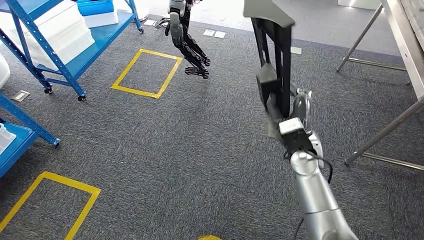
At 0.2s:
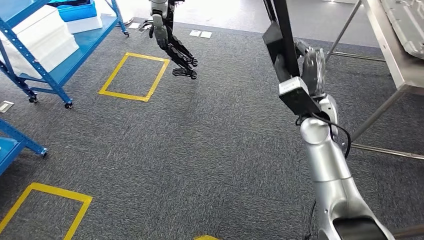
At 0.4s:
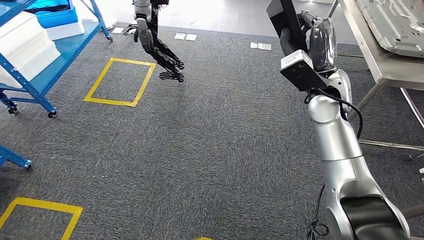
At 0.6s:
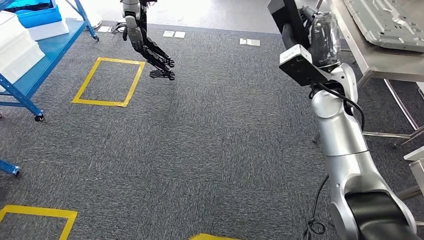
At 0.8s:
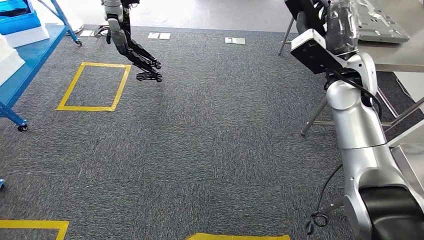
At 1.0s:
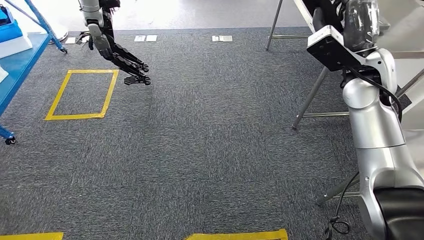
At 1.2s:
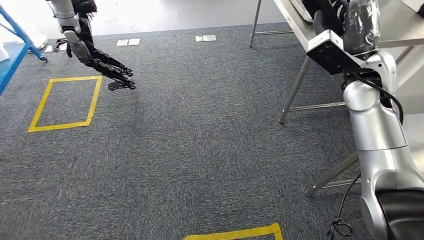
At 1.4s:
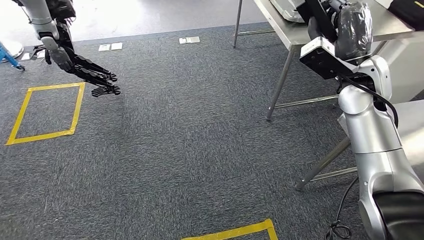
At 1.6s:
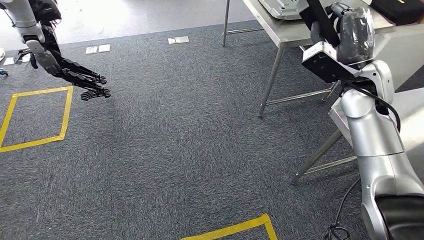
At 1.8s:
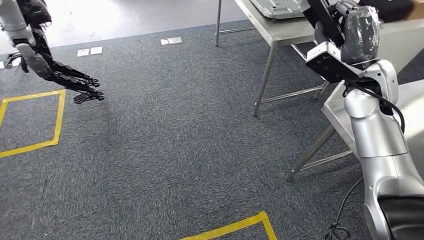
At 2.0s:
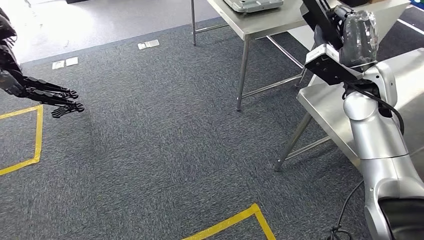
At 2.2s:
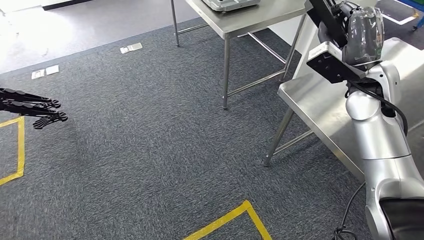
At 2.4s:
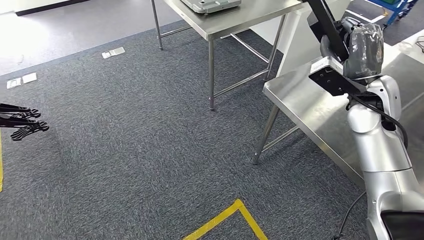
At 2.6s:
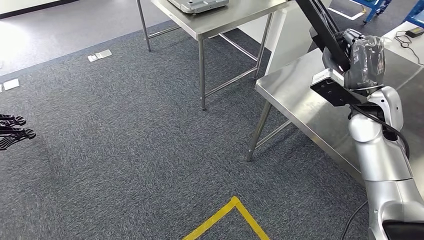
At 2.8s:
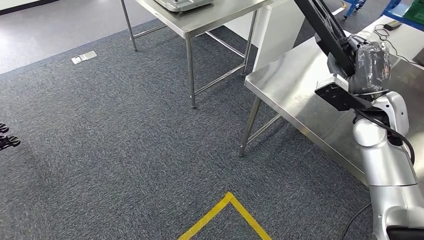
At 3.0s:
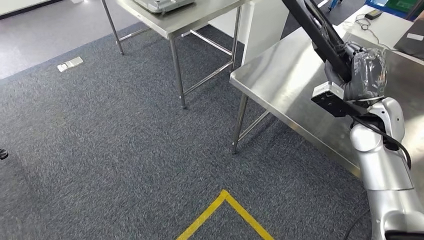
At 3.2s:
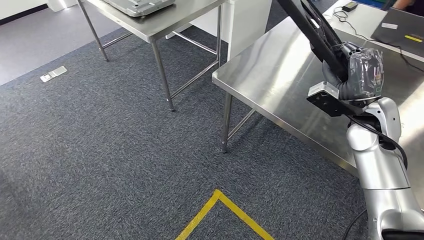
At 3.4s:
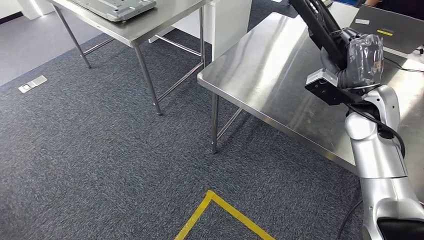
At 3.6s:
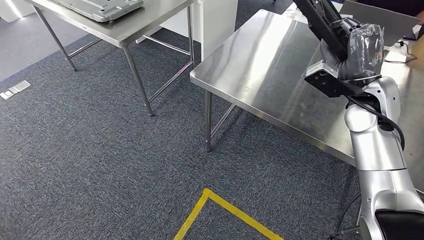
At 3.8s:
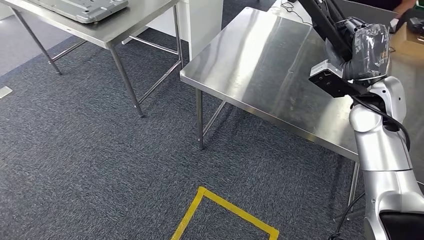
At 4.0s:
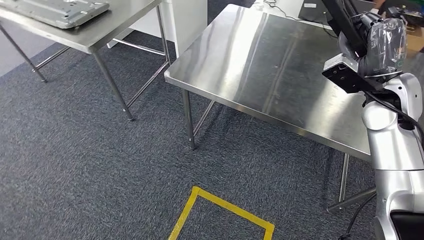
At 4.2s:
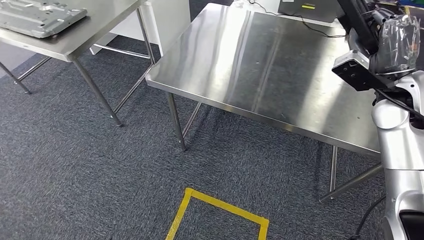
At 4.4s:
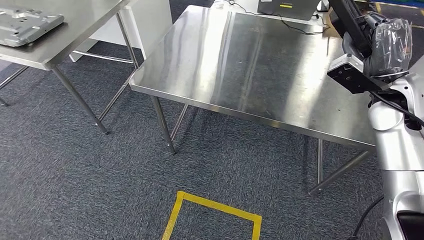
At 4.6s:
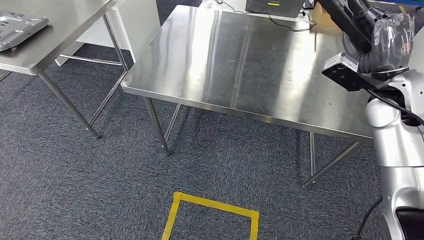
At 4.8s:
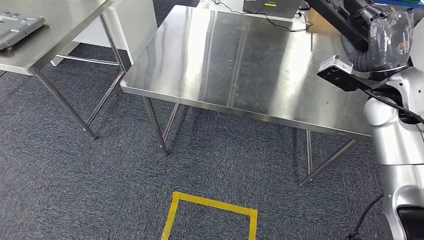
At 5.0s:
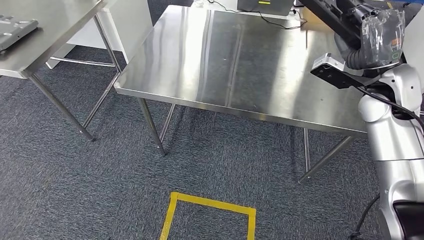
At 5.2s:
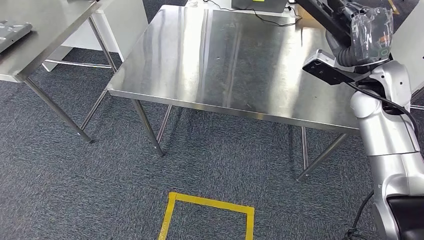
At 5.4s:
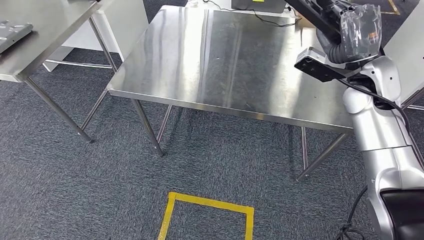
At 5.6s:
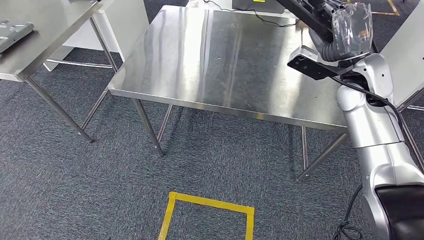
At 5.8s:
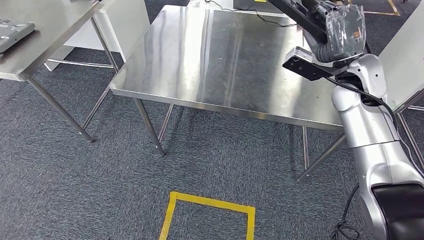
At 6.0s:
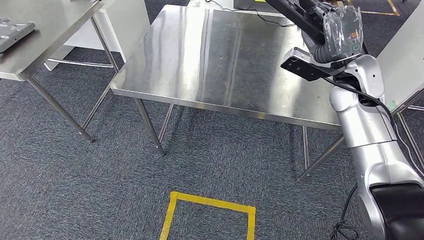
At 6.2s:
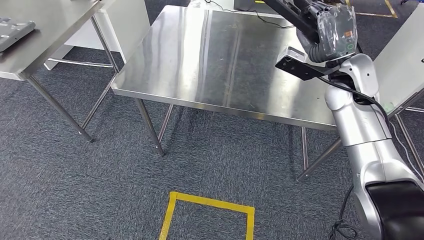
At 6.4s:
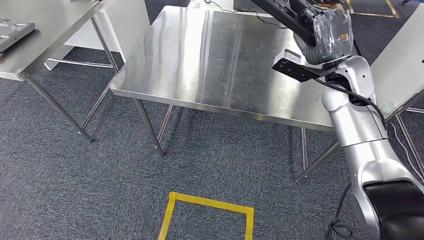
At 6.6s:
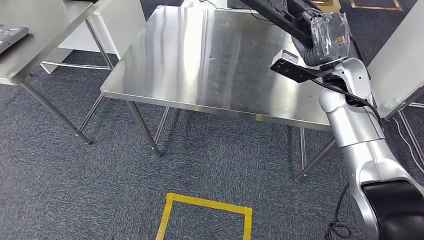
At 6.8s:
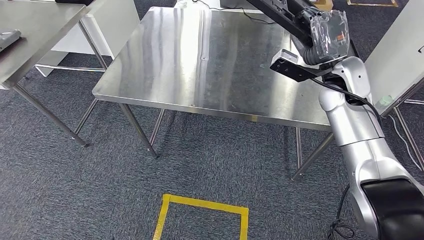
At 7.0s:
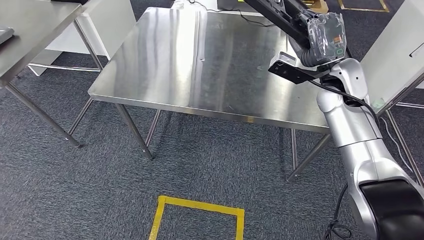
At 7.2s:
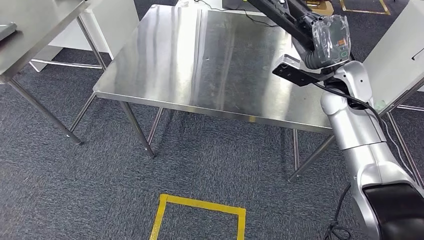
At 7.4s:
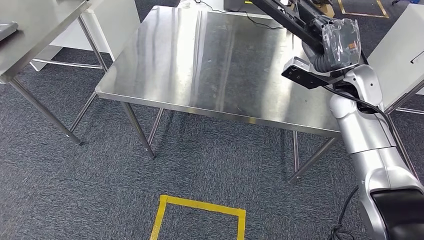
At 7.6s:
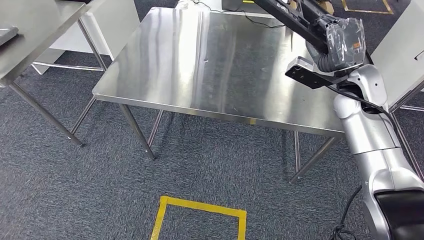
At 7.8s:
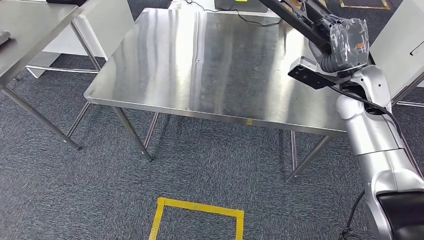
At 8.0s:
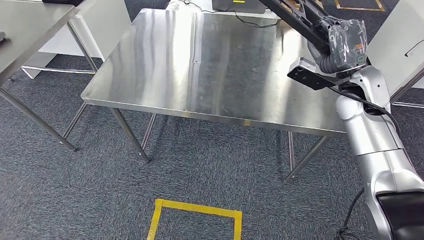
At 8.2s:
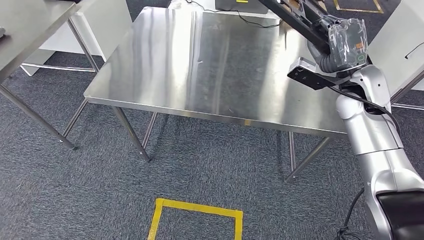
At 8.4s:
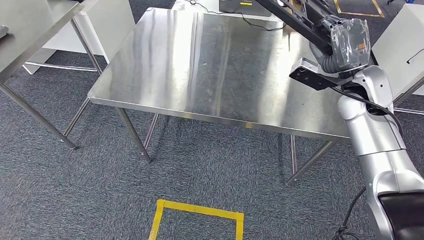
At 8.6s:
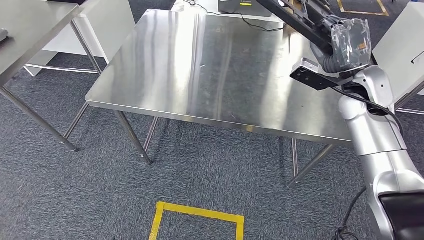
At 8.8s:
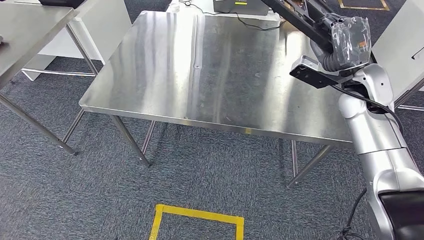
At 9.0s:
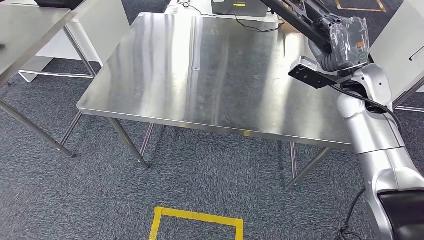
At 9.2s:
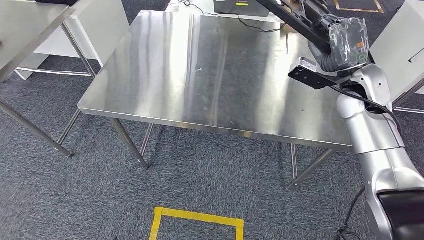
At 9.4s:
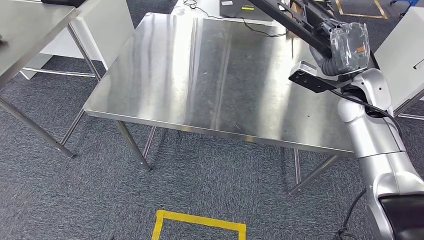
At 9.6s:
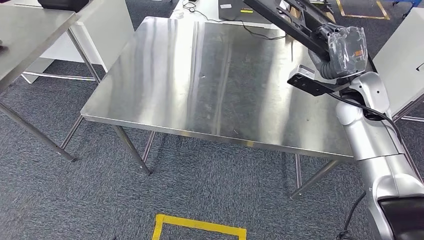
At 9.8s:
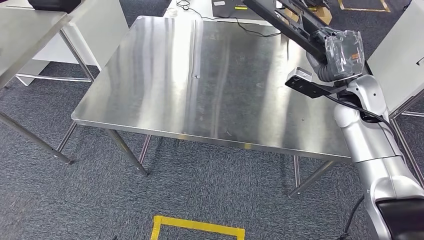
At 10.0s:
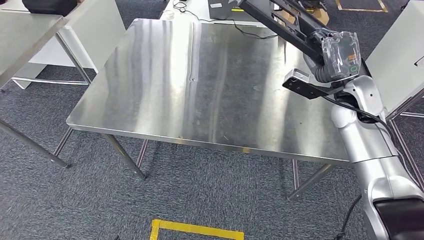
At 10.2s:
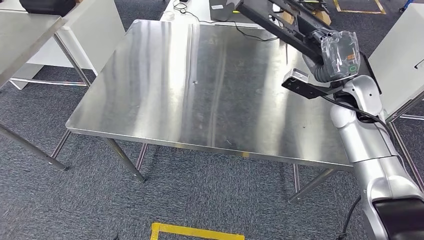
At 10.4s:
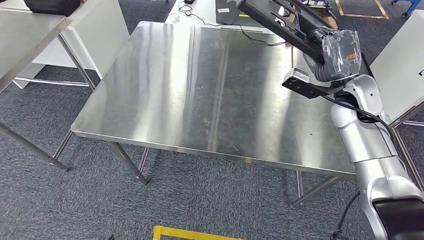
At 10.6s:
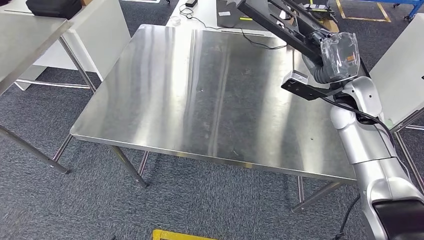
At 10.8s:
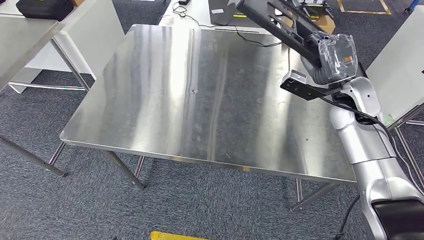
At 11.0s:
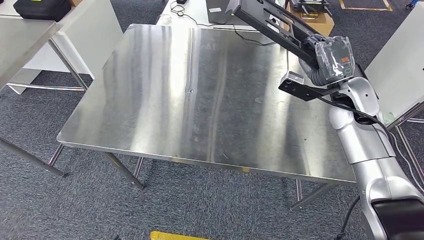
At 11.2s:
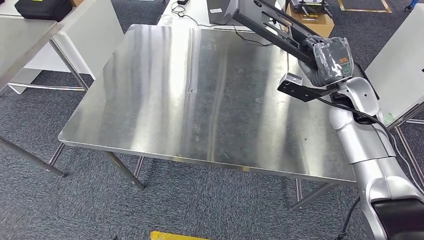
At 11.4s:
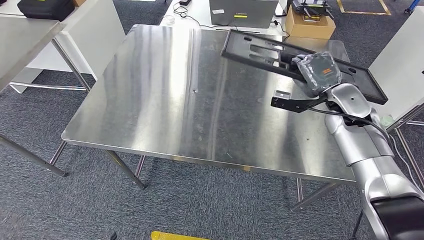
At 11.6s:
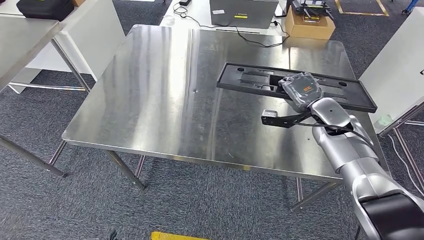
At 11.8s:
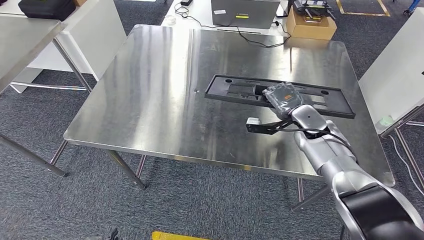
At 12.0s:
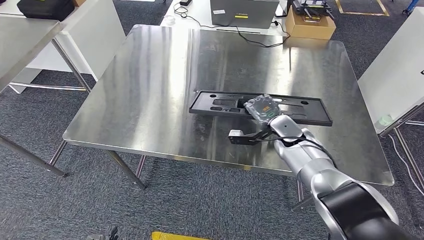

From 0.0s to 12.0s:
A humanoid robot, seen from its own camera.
Step, from 0.0s to 3.8s: Move the large material to the workbench.

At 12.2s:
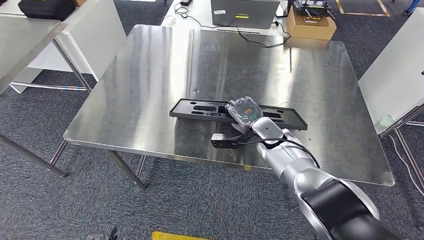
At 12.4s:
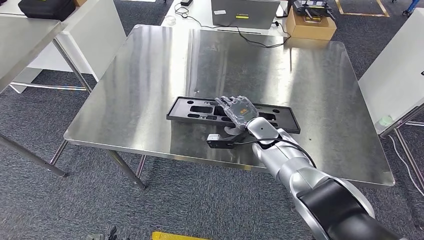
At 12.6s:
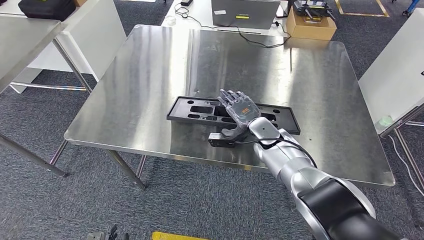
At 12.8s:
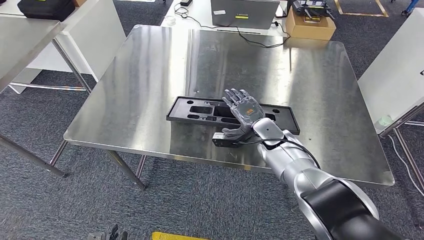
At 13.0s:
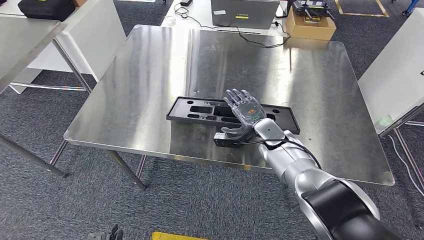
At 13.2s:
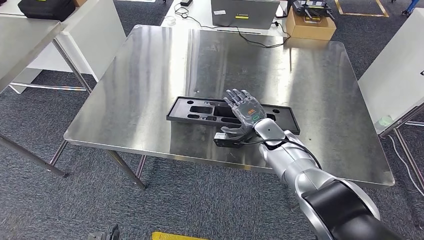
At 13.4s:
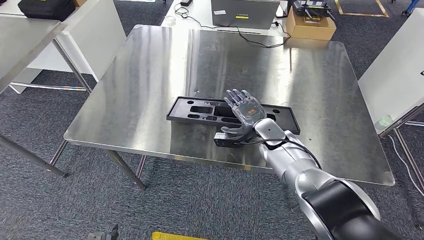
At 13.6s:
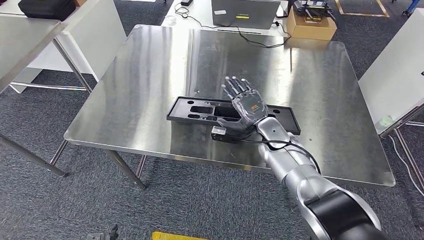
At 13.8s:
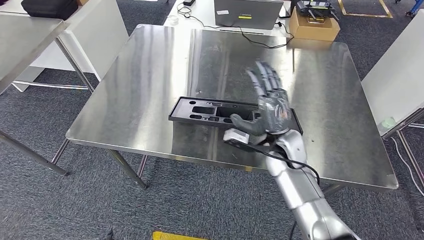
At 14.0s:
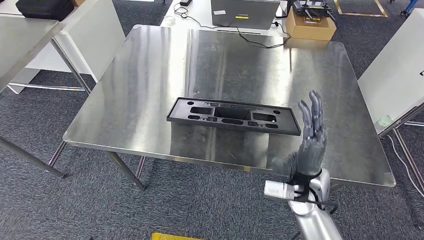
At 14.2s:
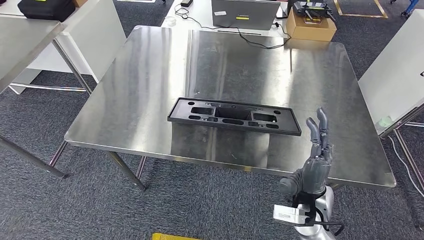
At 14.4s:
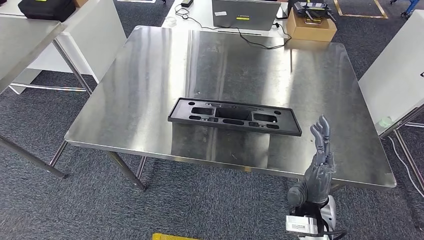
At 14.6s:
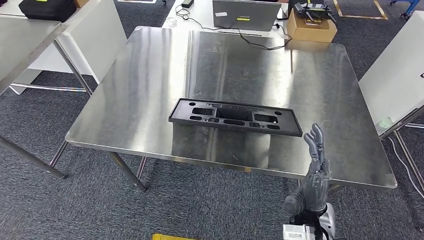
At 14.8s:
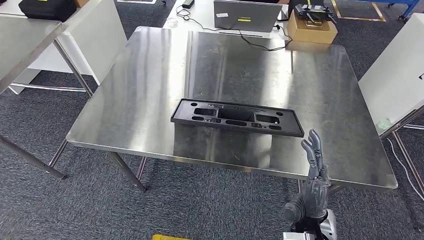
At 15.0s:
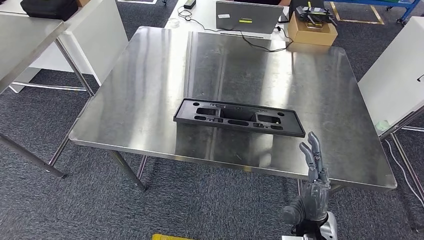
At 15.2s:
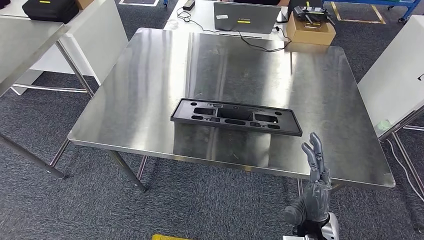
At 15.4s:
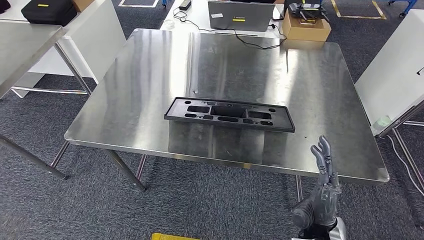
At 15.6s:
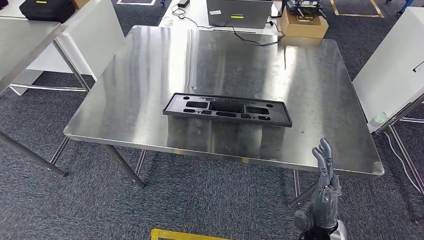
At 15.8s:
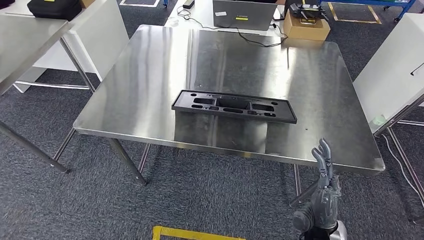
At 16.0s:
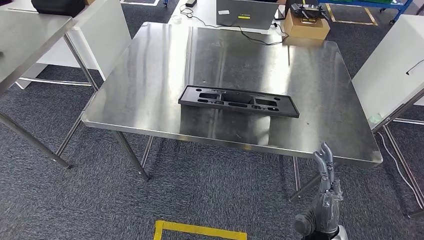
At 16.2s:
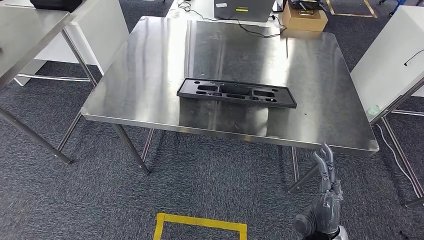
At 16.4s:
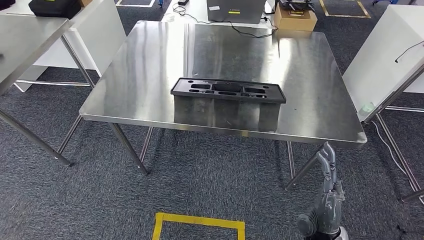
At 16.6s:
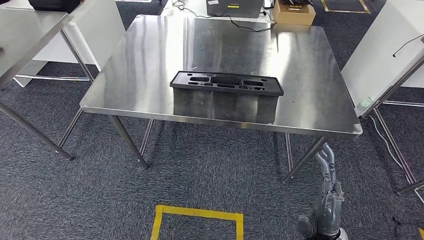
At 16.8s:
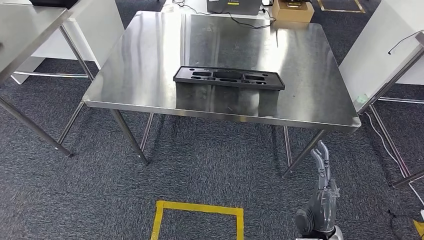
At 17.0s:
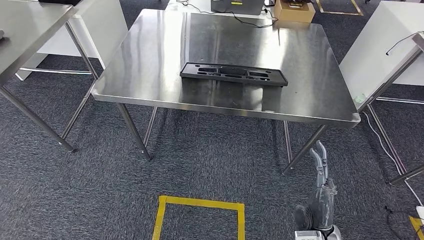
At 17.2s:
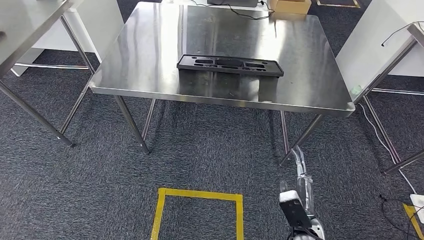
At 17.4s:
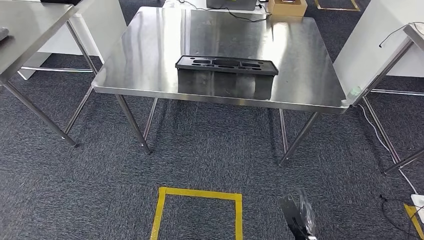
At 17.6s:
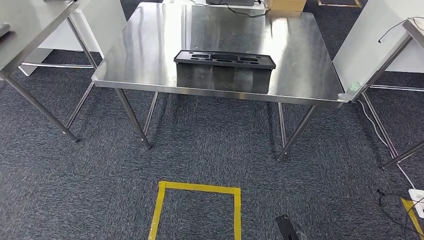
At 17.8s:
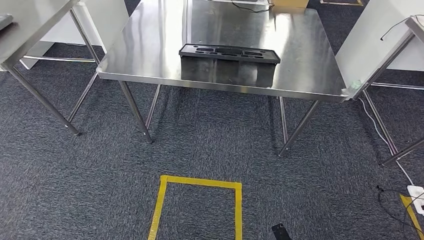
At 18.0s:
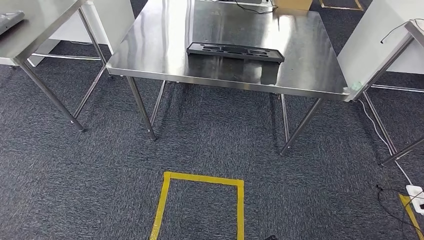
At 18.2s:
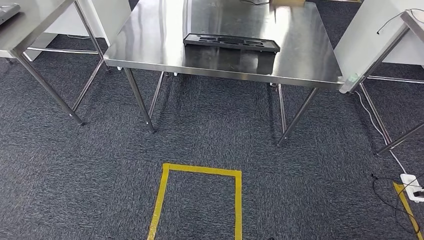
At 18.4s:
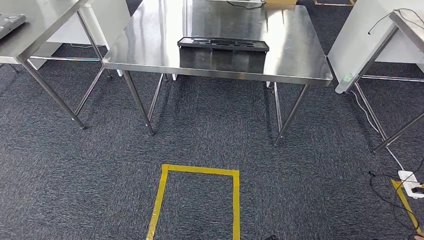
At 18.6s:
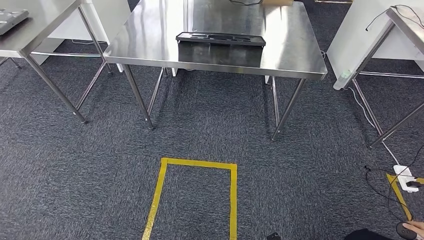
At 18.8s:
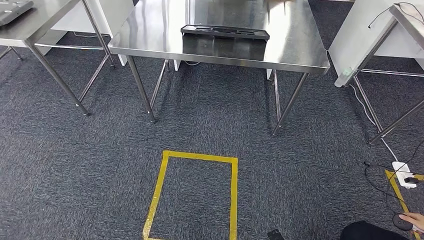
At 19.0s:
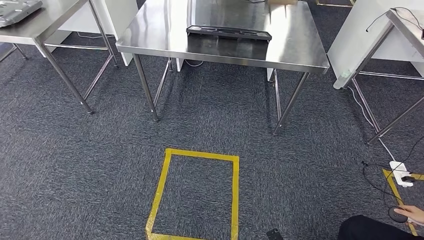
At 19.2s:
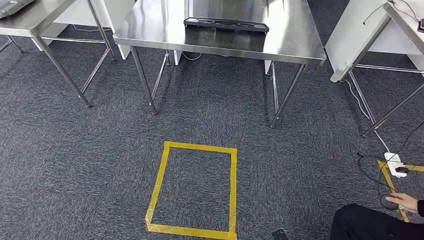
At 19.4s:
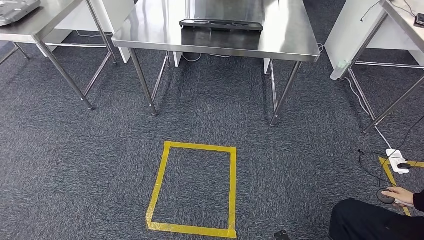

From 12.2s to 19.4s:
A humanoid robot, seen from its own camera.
Step, from 12.2s to 14.2s: Insert the large material into the corresponding slot on the workbench.
From 12.2s to 13.6s: There are only small adjustments of the hands.
